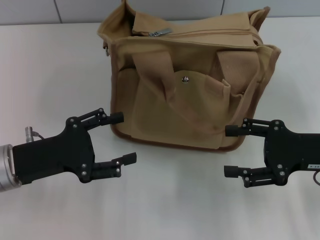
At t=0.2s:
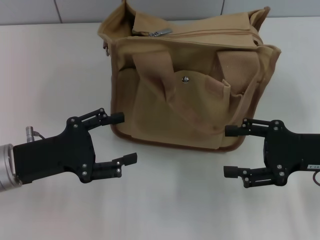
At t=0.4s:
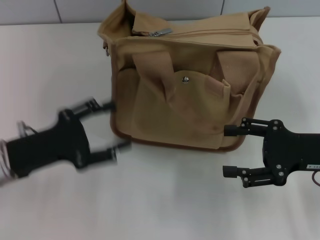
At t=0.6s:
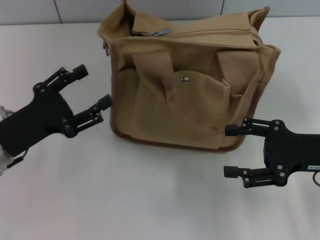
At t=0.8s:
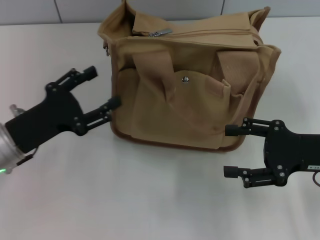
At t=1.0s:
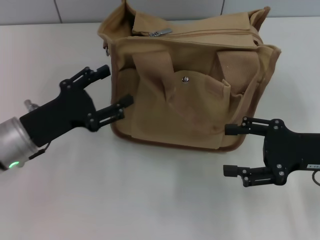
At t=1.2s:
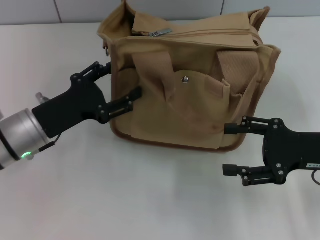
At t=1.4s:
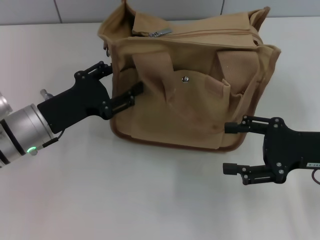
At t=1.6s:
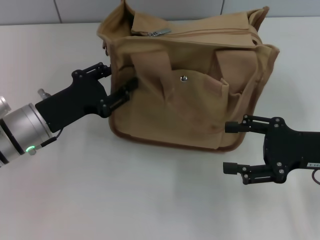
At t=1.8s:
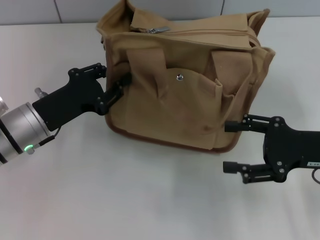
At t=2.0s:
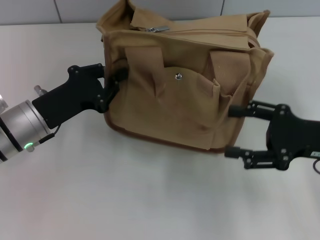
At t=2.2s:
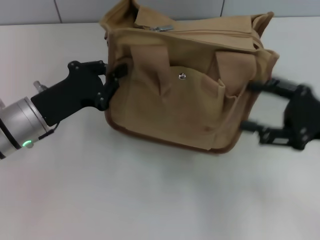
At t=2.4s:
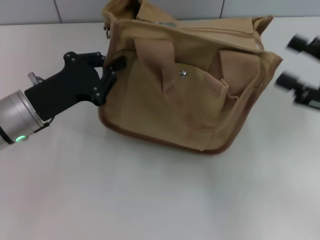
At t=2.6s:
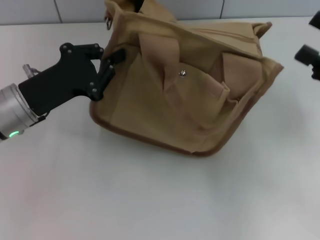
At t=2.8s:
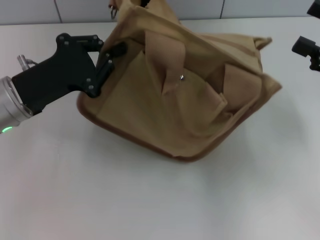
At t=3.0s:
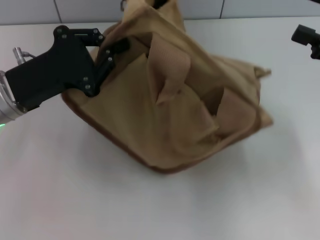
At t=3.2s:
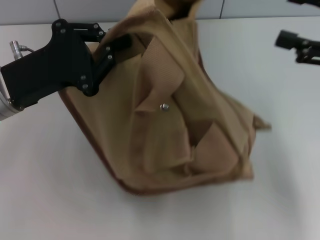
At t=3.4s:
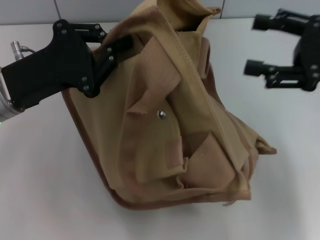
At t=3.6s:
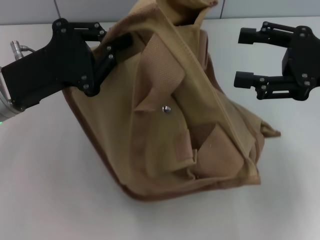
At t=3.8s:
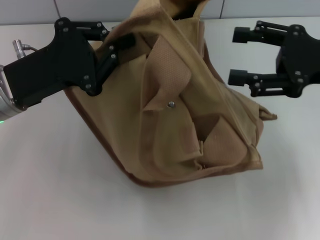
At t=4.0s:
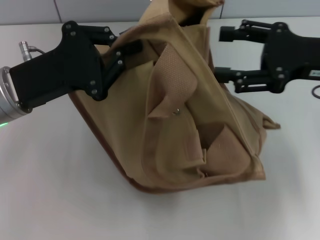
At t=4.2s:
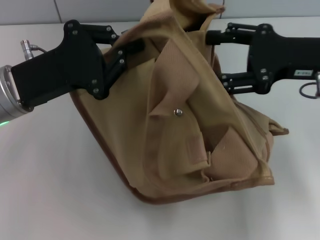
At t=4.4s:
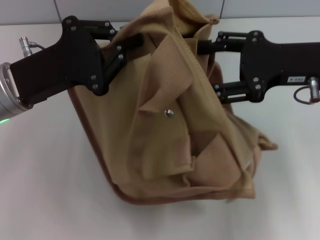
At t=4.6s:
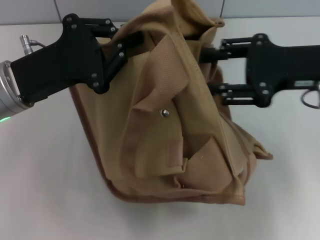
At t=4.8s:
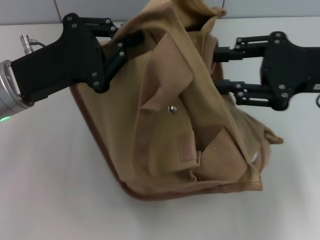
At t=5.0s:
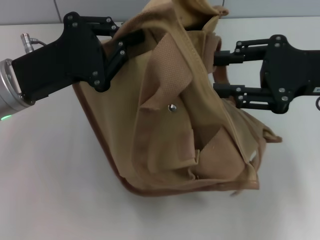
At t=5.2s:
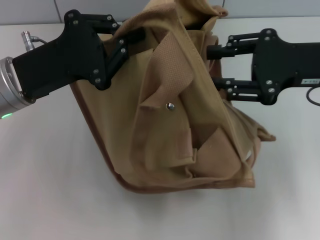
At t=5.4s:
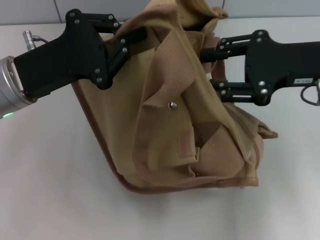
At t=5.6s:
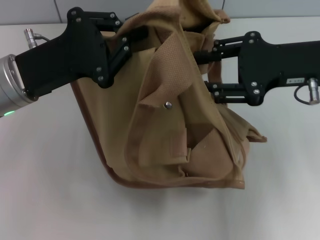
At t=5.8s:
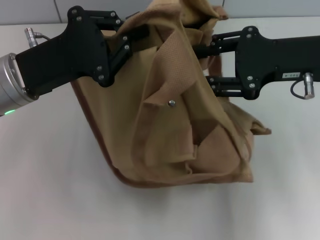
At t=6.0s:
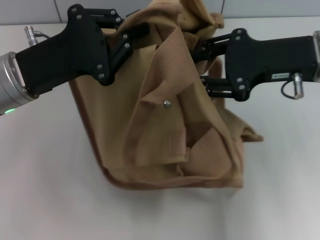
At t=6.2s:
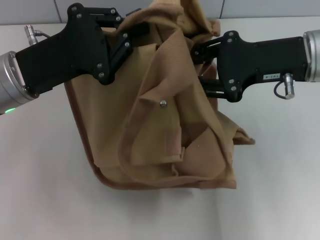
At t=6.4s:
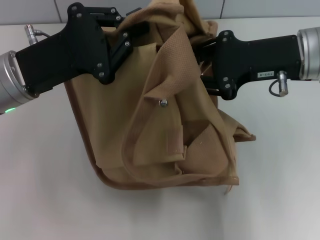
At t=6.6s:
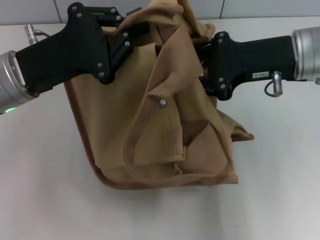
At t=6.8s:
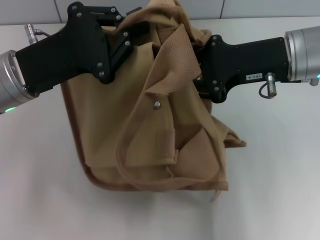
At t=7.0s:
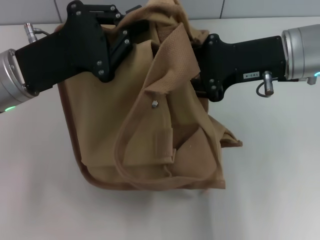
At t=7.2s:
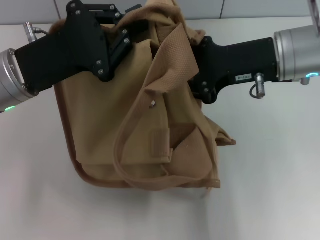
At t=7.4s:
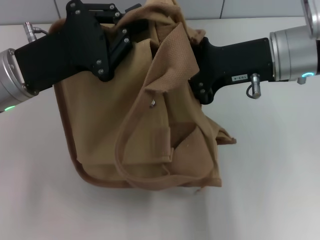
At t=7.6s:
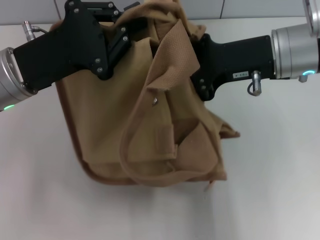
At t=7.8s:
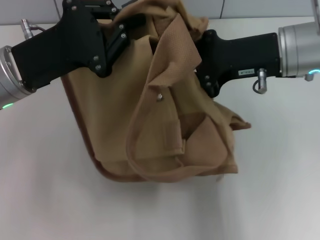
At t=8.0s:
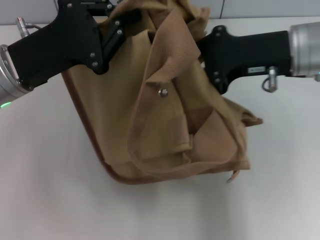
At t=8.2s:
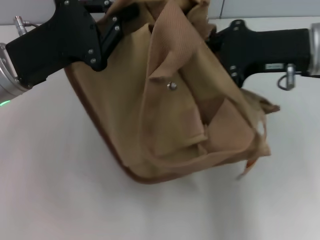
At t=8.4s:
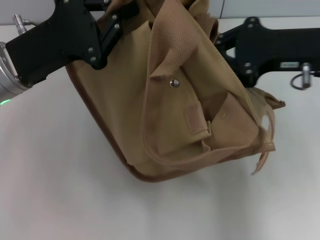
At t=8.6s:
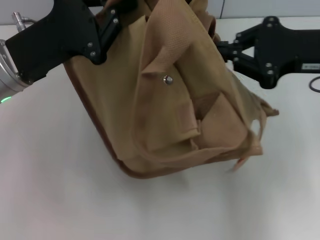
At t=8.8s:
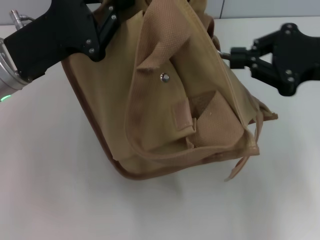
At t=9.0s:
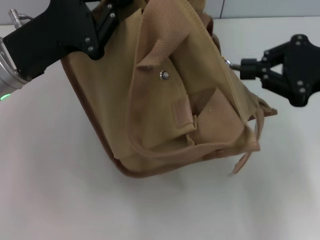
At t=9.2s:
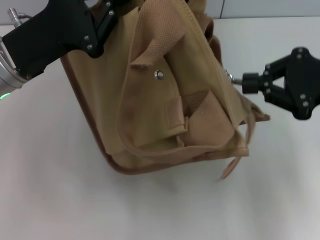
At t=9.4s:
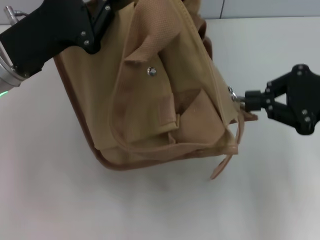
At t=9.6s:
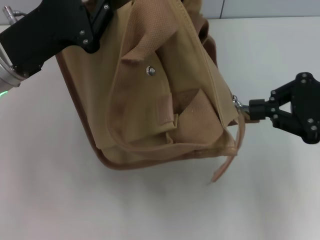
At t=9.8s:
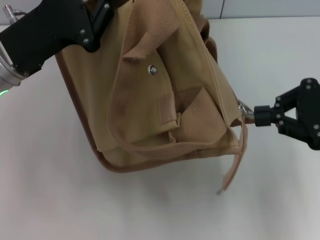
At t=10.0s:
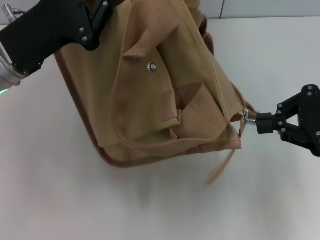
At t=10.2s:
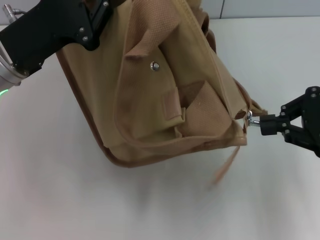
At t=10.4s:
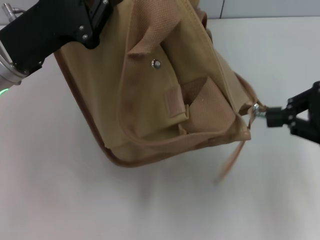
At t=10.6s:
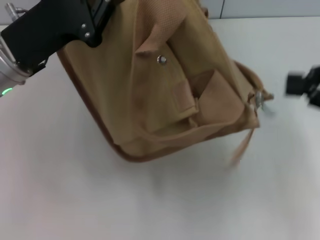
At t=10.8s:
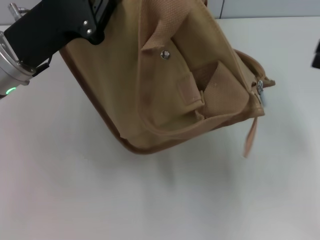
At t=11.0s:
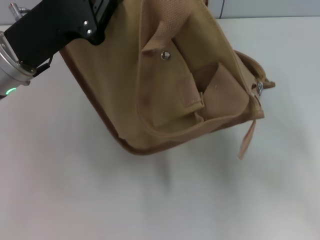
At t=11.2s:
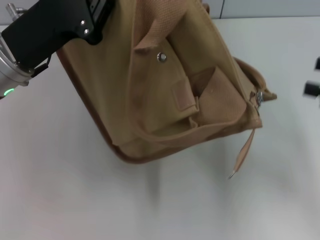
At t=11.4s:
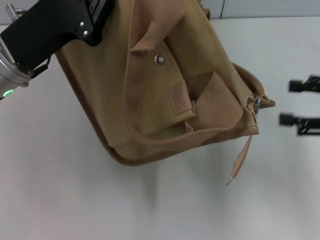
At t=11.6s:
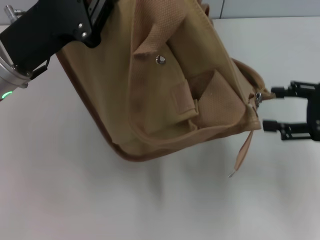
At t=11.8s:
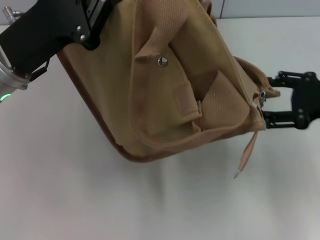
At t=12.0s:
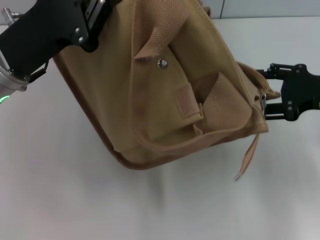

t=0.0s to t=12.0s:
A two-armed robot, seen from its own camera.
Step, t=0.0s to t=10.6s: Pull open the zipper with your right hand.
t=0.0s to t=1.6s: The left gripper moves forward, about 5 cm.
t=1.6s to t=3.0s: The left gripper shifts some 5 cm upward, and closes its fingers, while the right gripper moves upward and to the right, approximately 10 cm.
t=3.0s to t=4.4s: The right gripper travels to the left by about 10 cm.
t=4.4s to t=6.0s: The right gripper closes its fingers.
t=6.0s to t=7.6s: The right gripper closes its fingers.
t=7.6s to t=9.0s: The right gripper goes roughly 10 cm to the right.
t=10.4s to t=12.0s: The right gripper goes to the right and returns, roughly 5 cm each way, and opens up.

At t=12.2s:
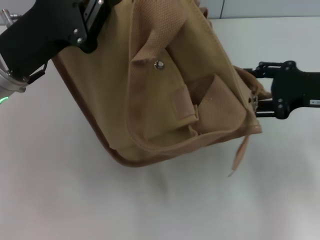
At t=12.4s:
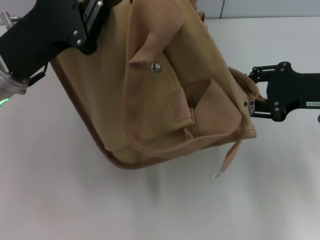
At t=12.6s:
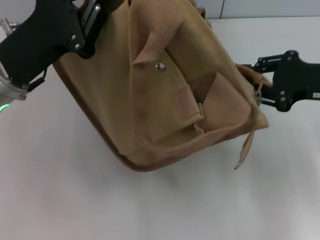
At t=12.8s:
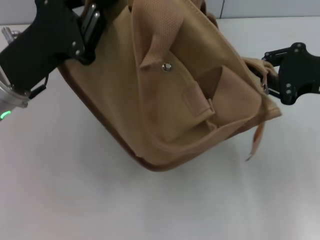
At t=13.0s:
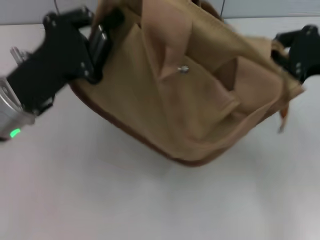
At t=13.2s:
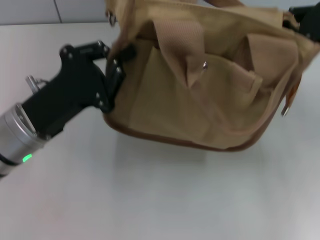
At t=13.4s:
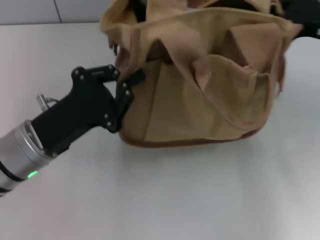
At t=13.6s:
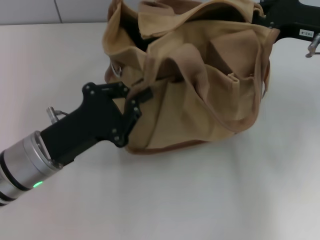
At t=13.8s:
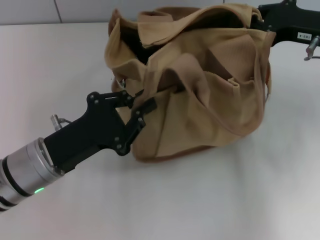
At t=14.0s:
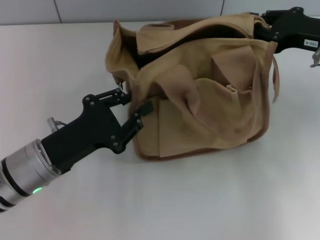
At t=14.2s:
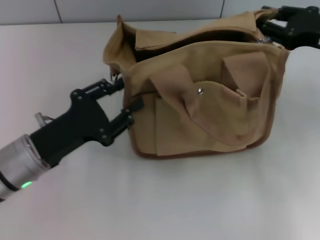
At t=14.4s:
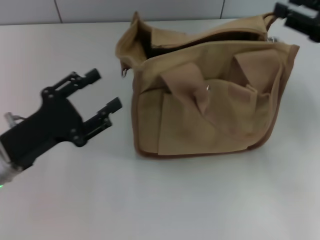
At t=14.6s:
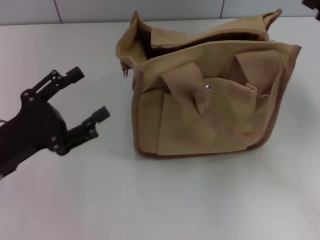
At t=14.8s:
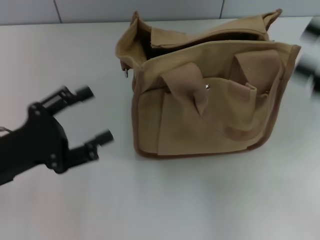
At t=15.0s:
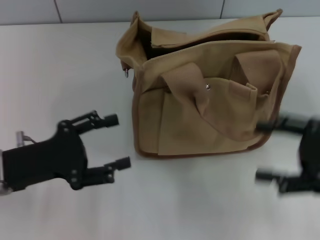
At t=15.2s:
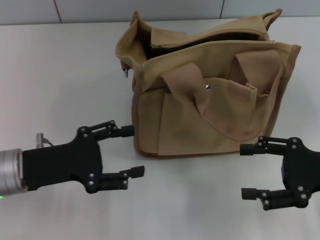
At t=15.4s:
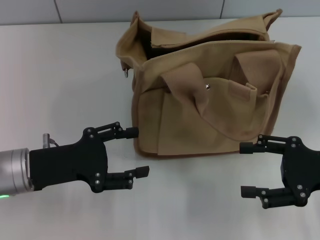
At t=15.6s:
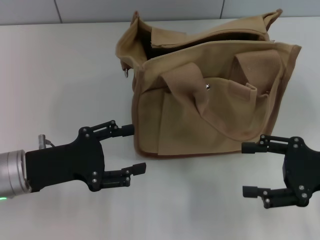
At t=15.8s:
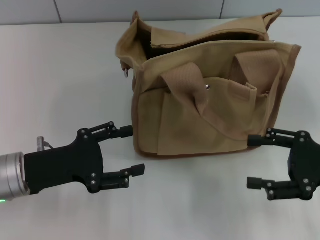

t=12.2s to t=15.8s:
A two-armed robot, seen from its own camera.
Step, t=12.2s to t=14.2s: Grab the bag with your left hand.
t=12.2s to t=14.0s: The left gripper shifts about 10 cm downward and backward. Meanwhile the right gripper closes its fingers.
t=14.0s to t=15.8s: The left gripper opens its fingers, while the right gripper shifts some 15 cm backward and downward, and opens its fingers.

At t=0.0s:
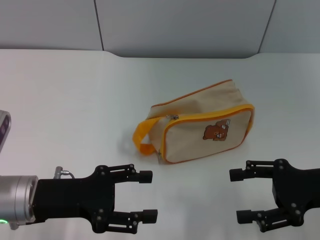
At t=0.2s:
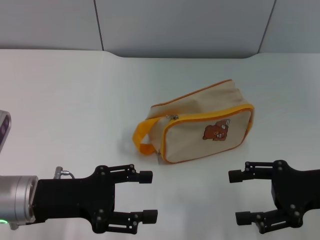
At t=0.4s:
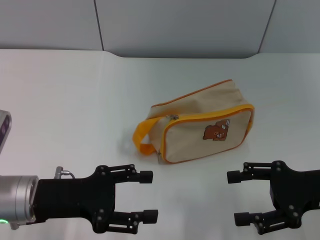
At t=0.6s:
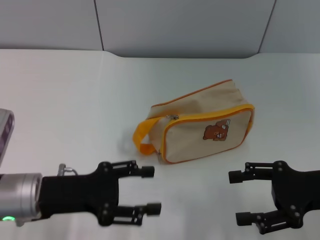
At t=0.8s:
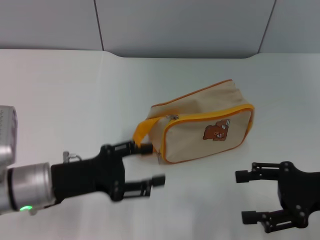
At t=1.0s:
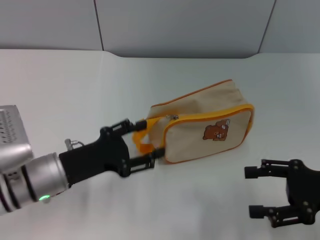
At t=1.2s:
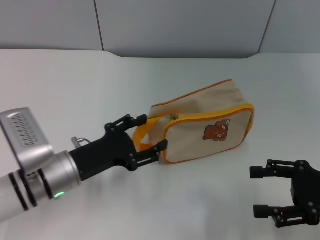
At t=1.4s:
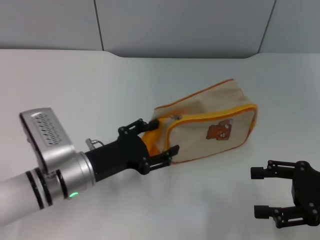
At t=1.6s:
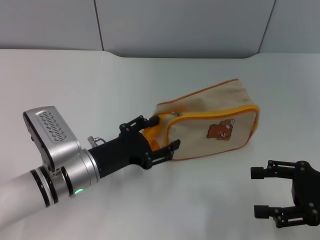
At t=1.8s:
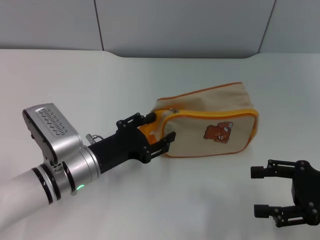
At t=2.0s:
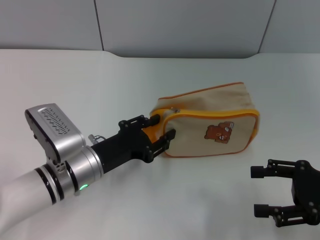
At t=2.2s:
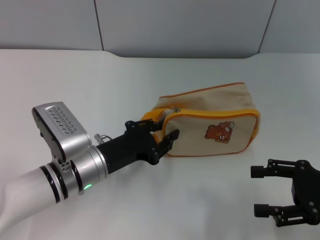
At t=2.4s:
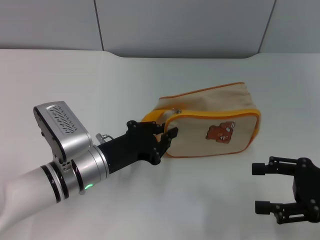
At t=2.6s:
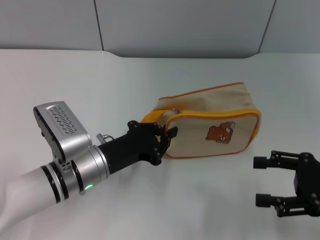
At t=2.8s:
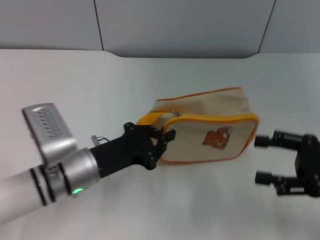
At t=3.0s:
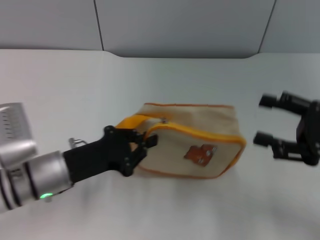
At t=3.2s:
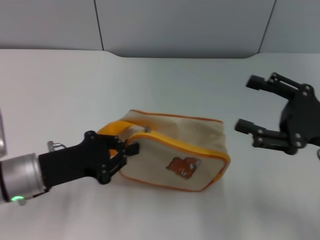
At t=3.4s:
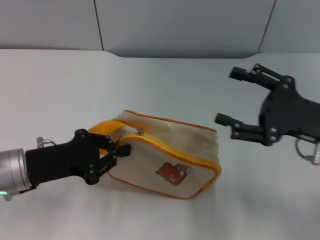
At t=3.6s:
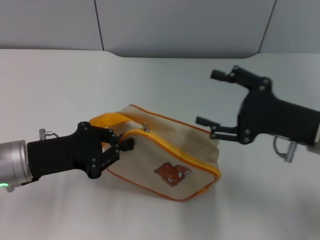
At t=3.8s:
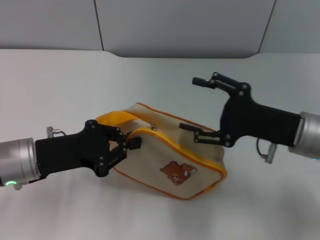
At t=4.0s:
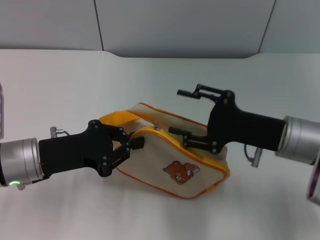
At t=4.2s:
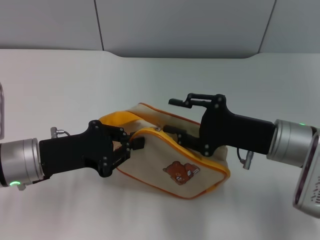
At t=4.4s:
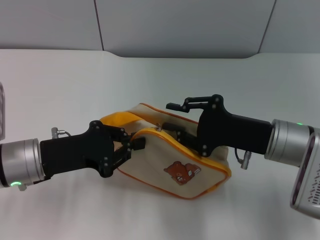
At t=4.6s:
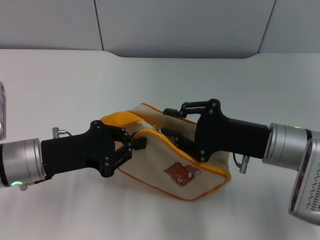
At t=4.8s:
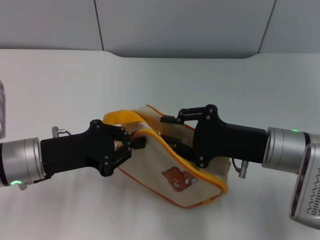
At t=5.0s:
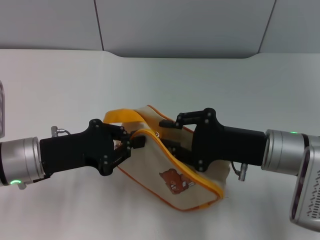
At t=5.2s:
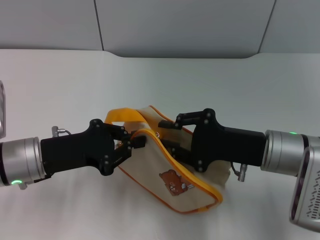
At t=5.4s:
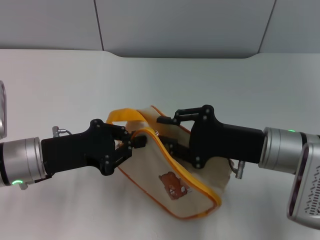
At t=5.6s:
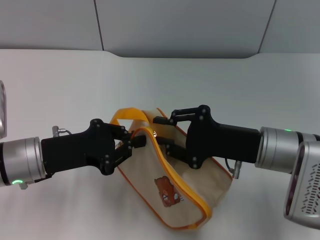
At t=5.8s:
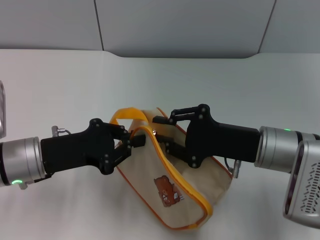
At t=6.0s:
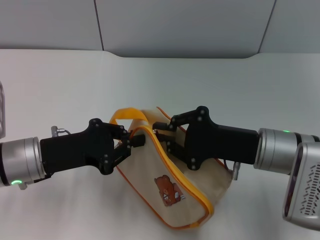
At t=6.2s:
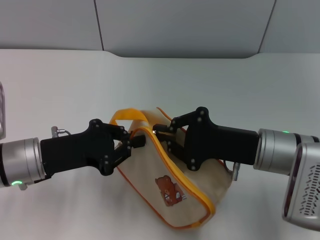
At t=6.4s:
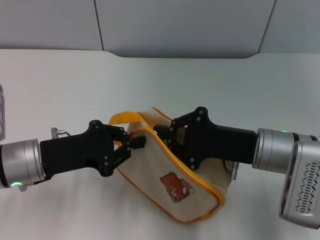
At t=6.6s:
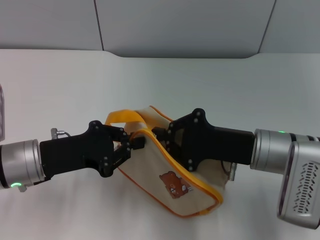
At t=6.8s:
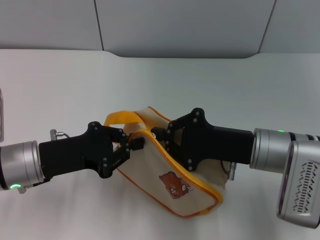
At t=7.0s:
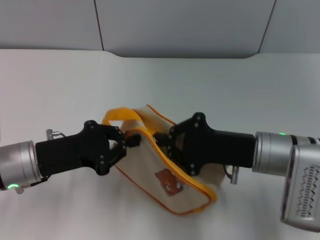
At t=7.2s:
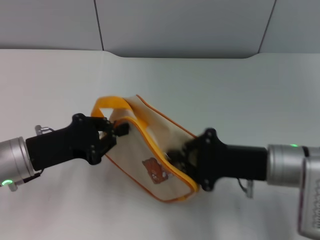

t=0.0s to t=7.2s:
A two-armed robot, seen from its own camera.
Step, t=0.0s to t=3.2s: Pick up the bag with left gripper.
t=0.0s to t=1.4s: The left gripper goes approximately 5 cm to the right.
t=1.4s to t=2.8s: The left gripper closes its fingers.
t=2.8s to t=4.4s: The left gripper heads to the left, covering about 5 cm. Meanwhile the right gripper shifts some 15 cm to the left and forward, and closes its fingers.
t=4.4s to t=5.8s: There are only small adjustments of the grippers.
